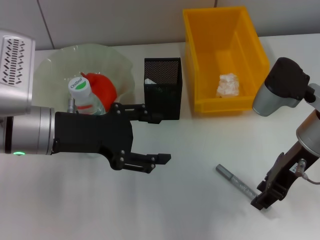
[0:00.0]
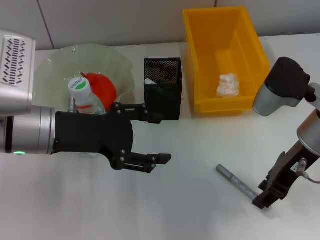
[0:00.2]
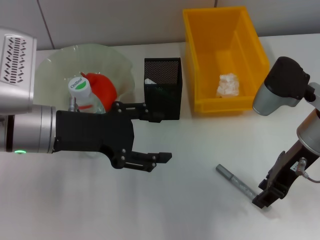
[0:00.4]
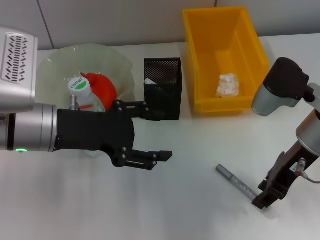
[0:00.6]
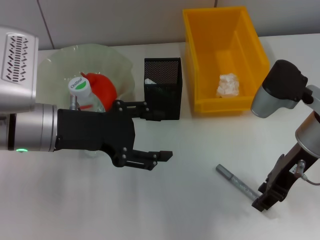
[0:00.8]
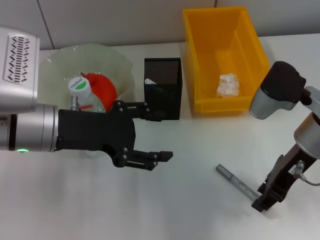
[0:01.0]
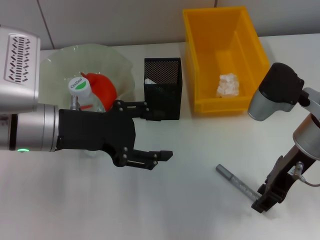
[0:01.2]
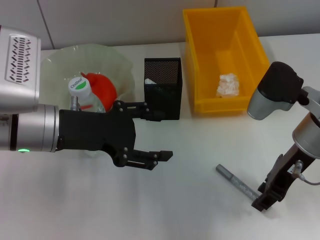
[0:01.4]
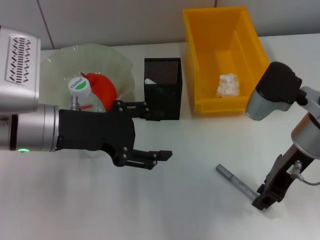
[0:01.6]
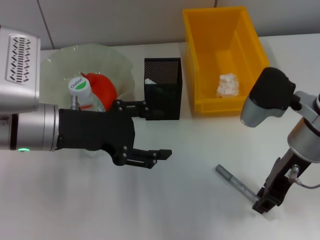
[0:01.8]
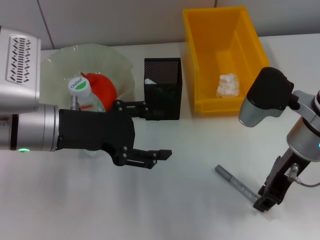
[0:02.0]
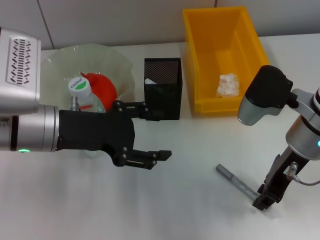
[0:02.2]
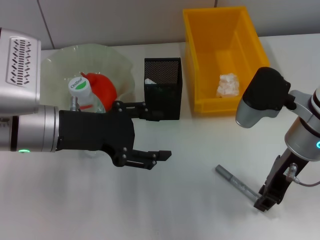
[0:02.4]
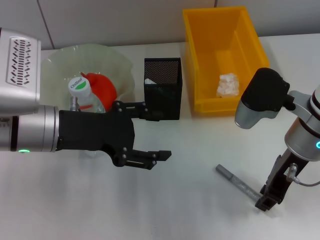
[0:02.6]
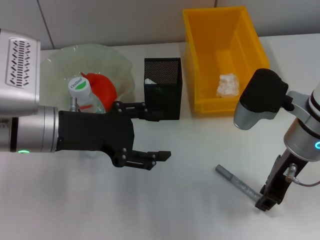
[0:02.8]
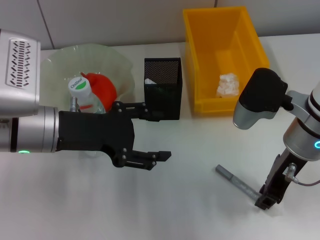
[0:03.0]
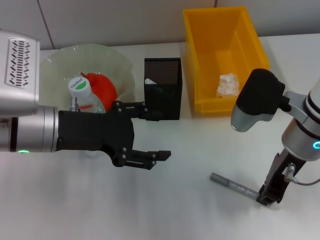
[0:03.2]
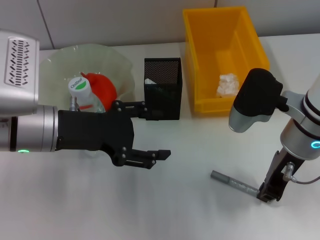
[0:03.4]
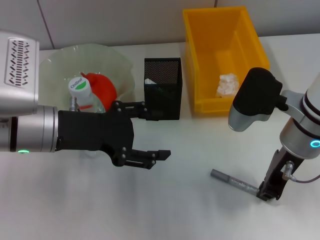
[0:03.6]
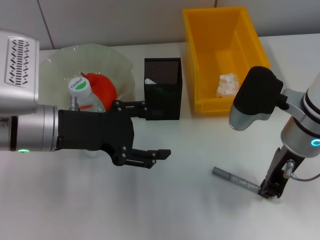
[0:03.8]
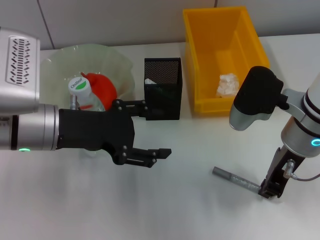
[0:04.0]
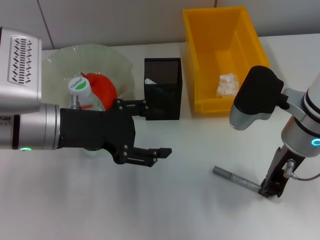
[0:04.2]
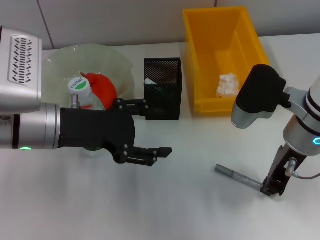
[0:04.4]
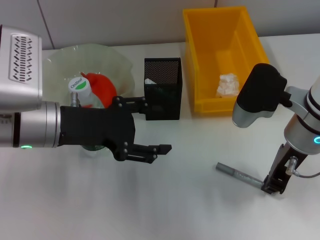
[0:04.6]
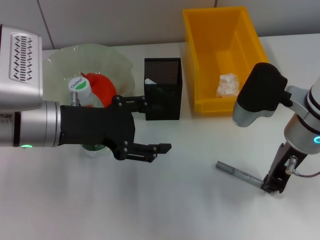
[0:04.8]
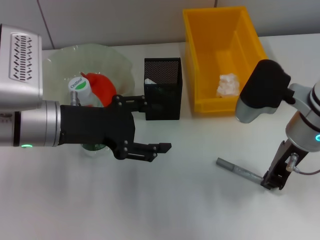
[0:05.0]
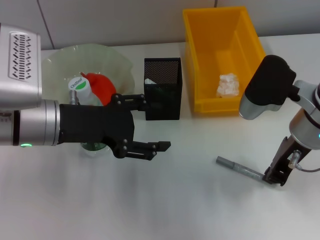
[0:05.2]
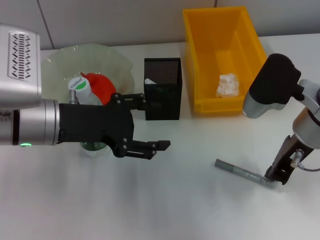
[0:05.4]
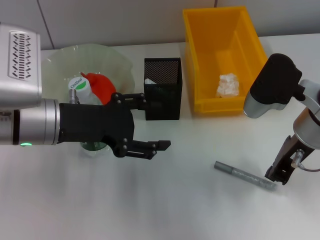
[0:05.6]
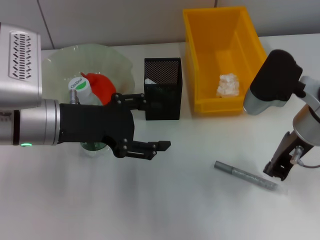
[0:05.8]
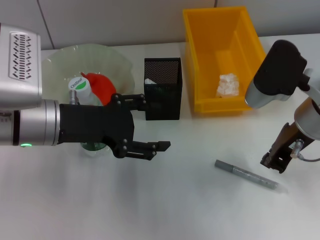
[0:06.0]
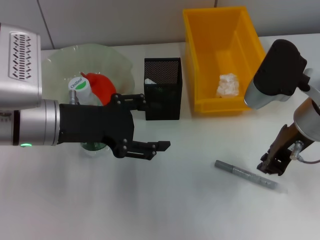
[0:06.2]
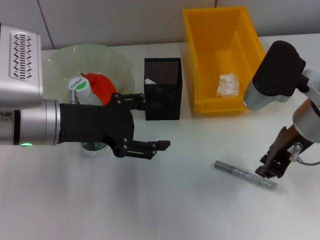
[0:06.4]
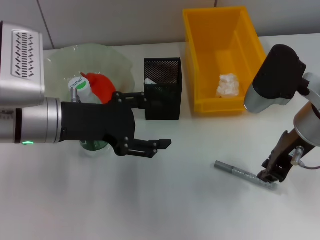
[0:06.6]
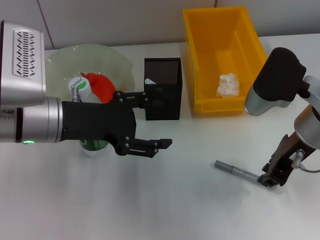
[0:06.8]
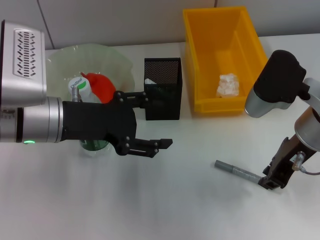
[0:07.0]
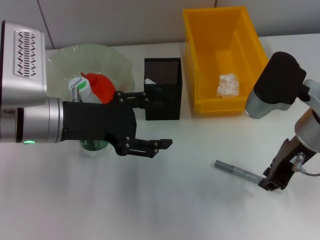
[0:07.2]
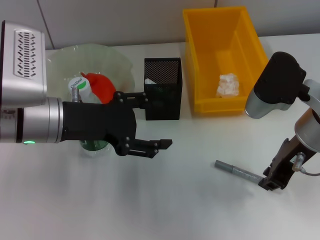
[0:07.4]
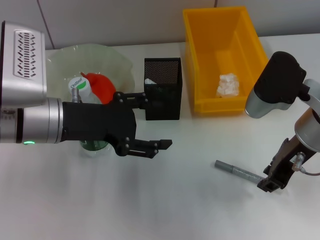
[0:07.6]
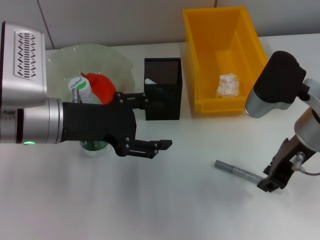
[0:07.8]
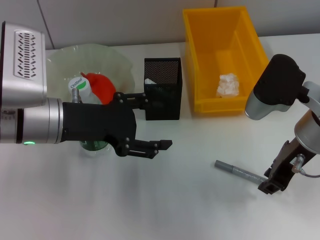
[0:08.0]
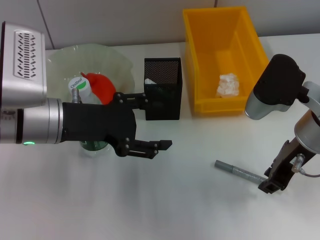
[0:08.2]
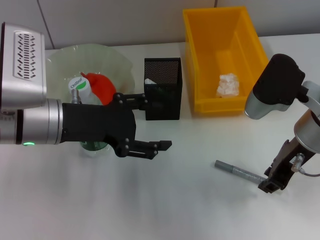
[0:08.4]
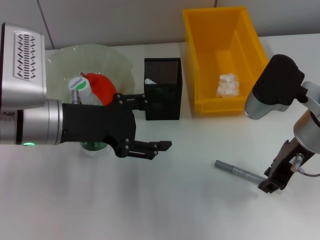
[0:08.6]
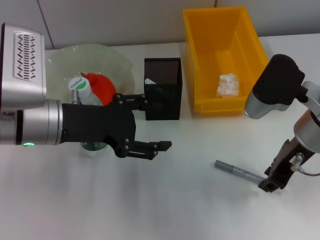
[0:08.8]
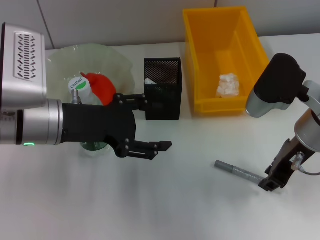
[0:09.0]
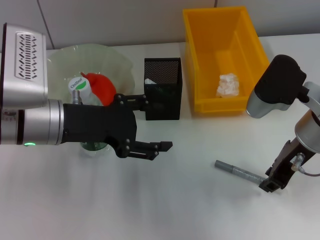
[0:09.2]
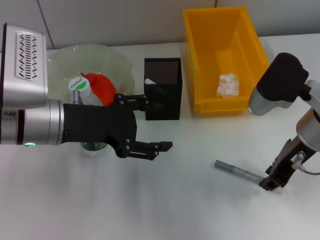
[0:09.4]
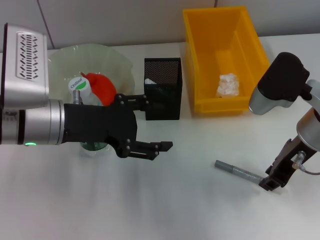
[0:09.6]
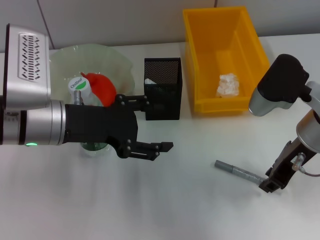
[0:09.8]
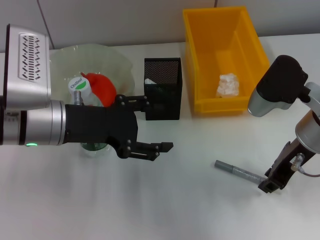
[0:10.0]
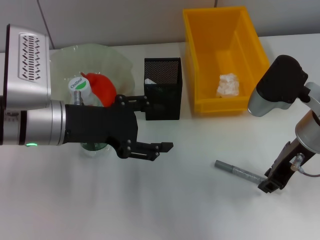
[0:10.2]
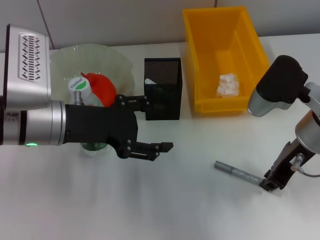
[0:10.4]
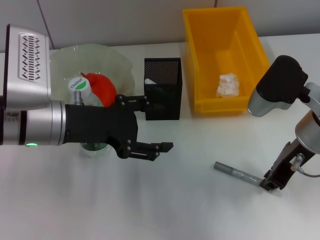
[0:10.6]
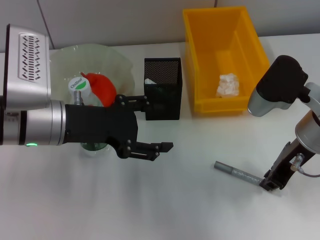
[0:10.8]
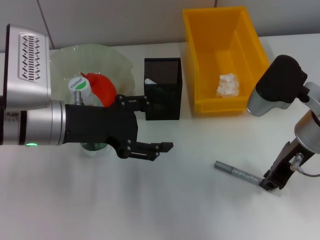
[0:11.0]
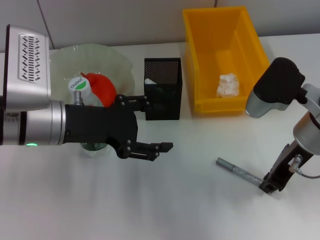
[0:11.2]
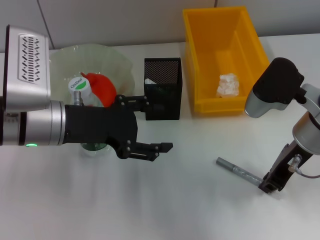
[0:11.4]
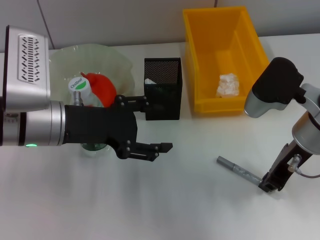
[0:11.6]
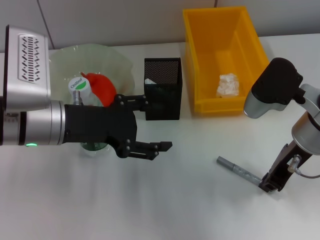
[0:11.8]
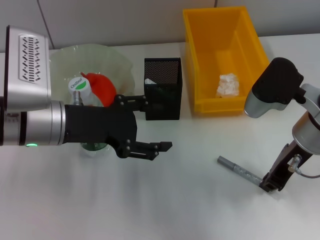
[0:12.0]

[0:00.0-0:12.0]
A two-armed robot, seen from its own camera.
0:00.0 to 0:01.6: The two grippers keep their place.
0:01.6 to 0:07.6: The grippers move only a little.
0:07.6 to 0:09.0: Both grippers stay about where they are.
0:09.0 to 0:12.0: Both grippers stay put.

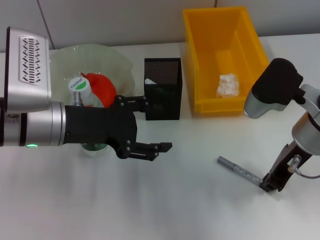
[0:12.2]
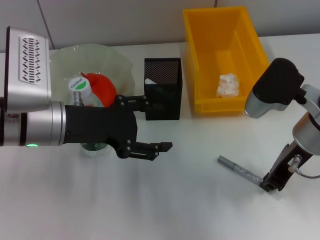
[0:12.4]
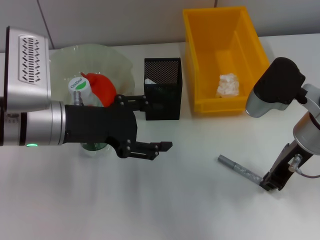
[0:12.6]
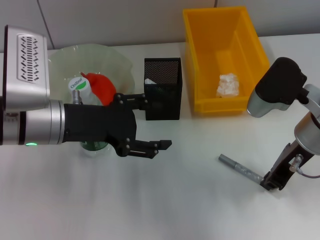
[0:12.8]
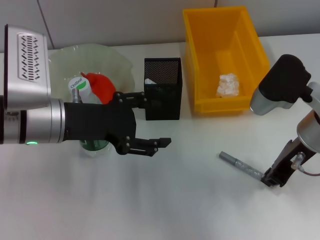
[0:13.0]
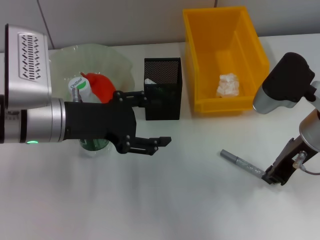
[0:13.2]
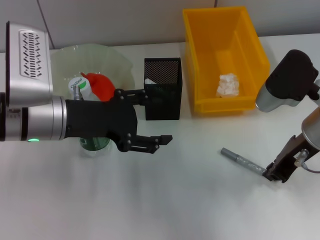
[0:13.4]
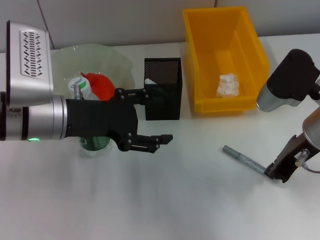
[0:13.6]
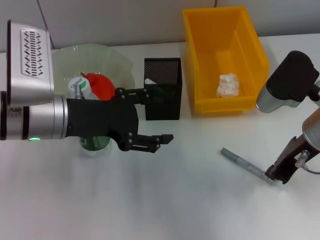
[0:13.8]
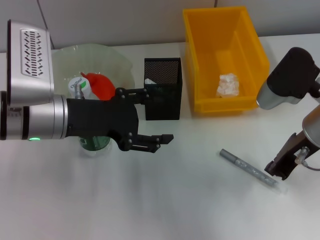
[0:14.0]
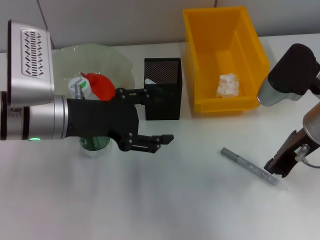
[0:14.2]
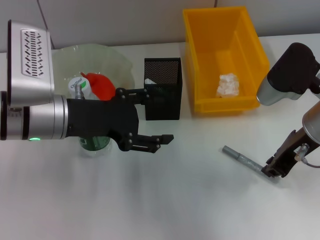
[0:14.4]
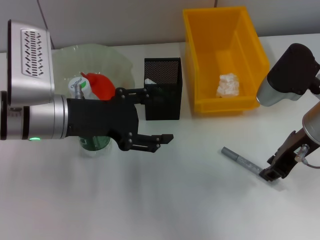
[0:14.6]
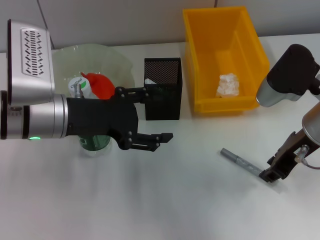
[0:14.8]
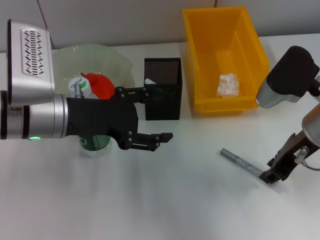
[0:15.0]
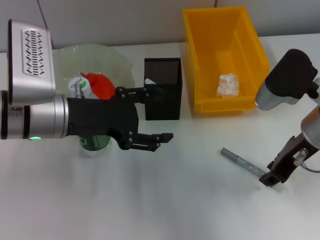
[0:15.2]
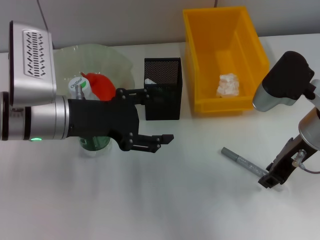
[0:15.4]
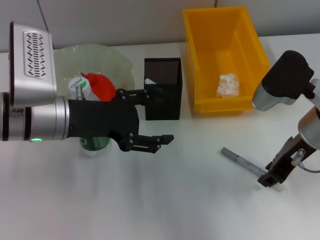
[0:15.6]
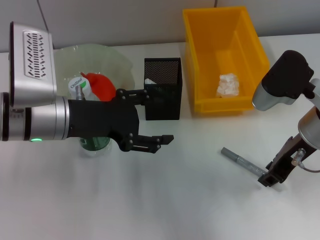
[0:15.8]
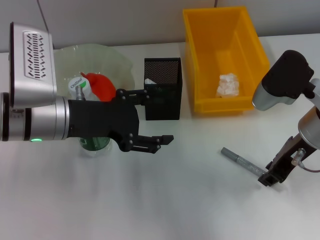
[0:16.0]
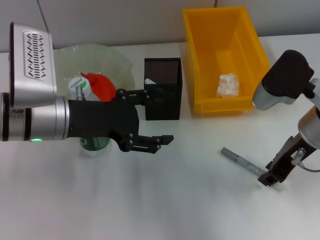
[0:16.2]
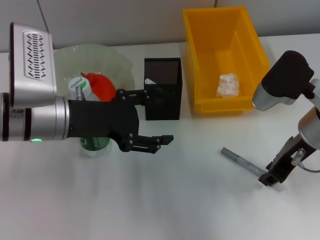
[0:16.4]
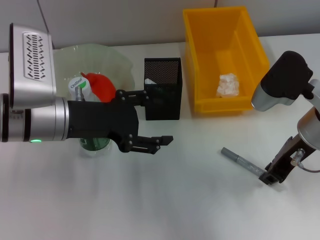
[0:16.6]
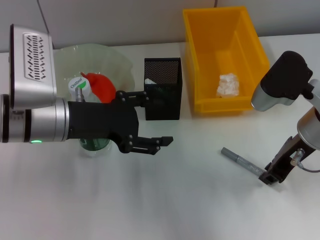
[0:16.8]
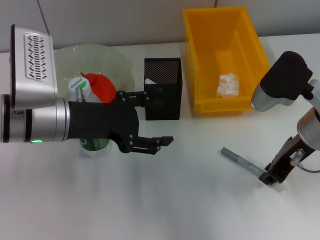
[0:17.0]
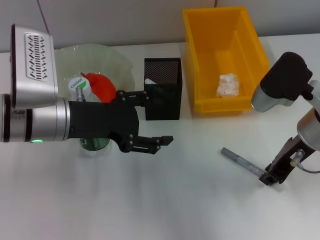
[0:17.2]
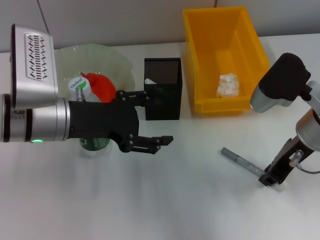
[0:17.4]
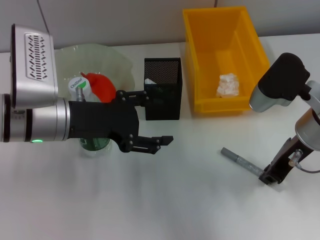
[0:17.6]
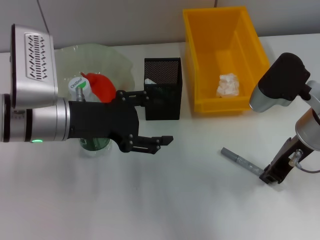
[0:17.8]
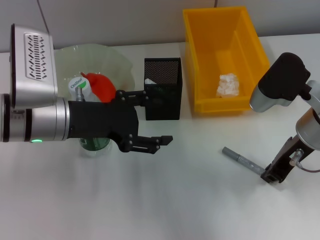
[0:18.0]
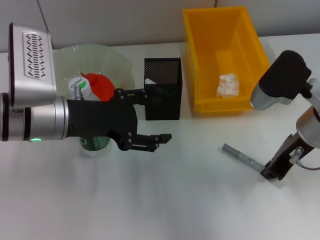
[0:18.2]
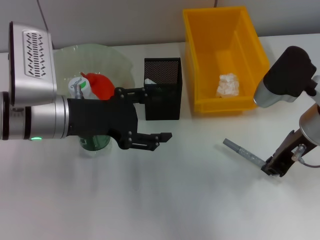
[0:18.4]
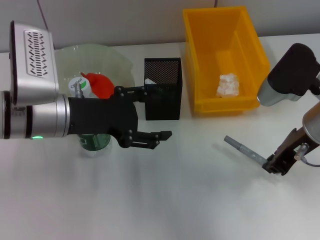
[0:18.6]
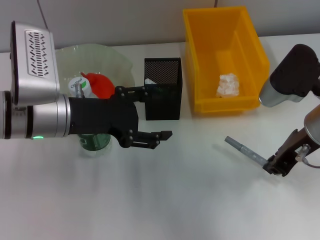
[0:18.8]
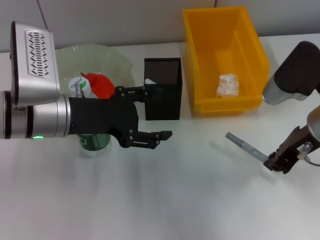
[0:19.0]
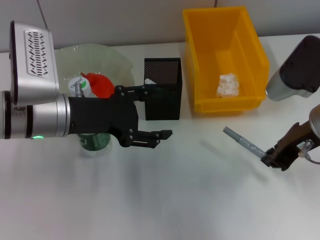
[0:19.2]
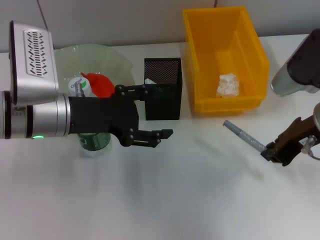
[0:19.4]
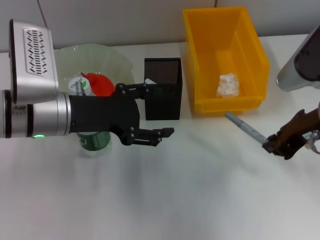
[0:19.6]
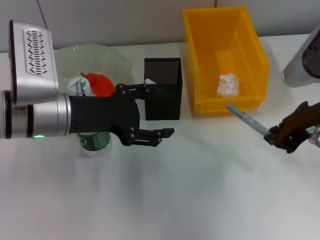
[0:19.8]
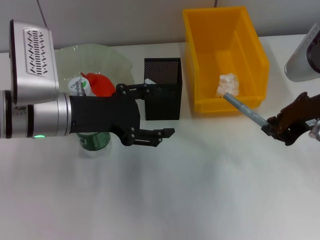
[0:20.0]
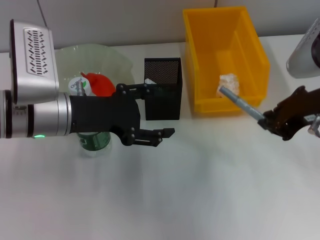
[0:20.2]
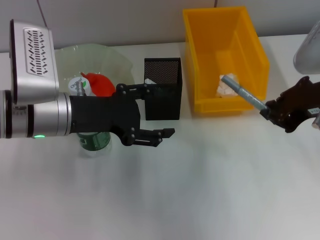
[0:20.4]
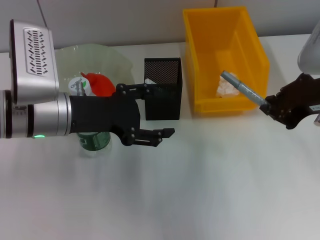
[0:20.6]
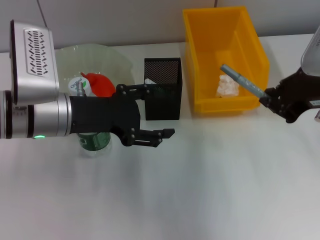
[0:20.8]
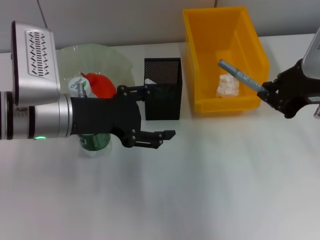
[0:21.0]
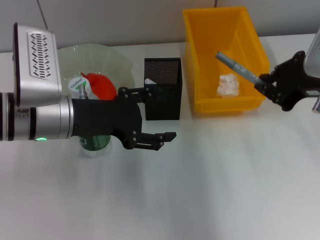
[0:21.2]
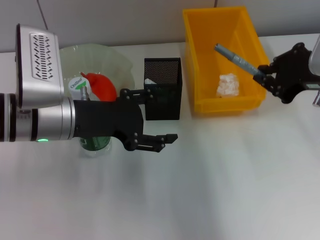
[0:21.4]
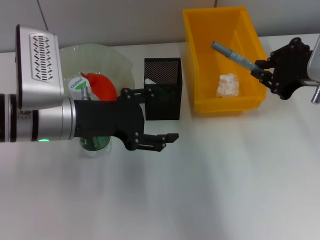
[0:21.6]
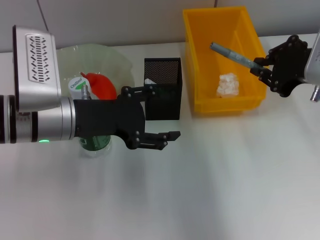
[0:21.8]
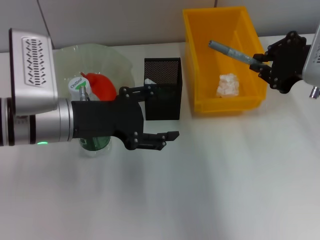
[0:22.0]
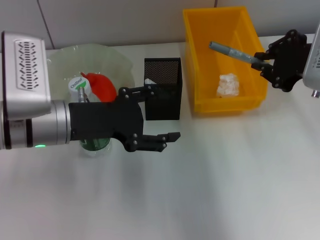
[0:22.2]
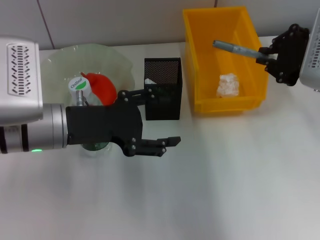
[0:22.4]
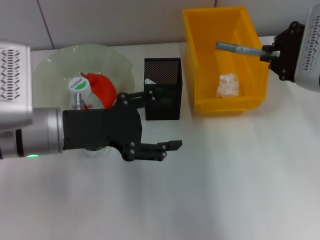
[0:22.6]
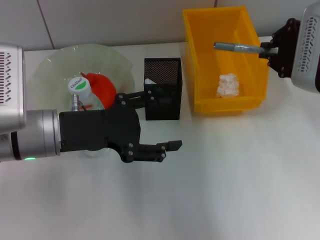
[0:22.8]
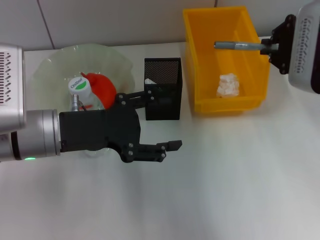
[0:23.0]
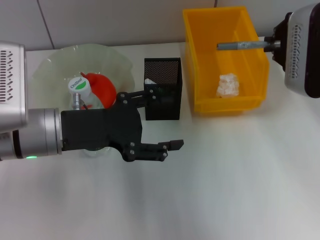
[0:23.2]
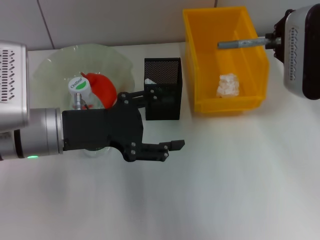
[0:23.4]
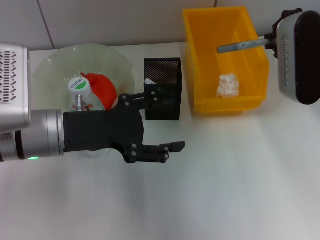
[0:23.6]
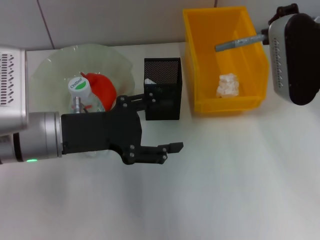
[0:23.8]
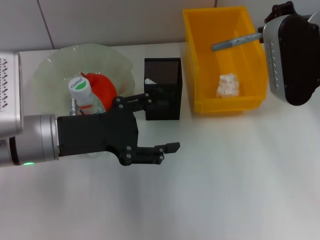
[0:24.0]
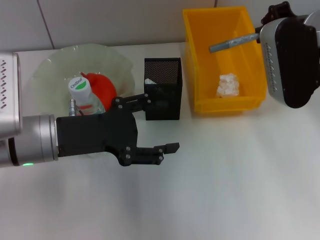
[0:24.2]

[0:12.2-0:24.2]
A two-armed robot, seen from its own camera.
Step, 0:12.2 to 0:17.8: Grab the gray glue with the right hand.
0:12.2 to 0:13.8: There are only small adjustments of the grippers.
0:13.8 to 0:15.2: The right gripper opens up.
0:15.2 to 0:18.2: The two grippers keep their place.
0:18.2 to 0:19.8: The right gripper heads upward, covering roughly 5 cm.
